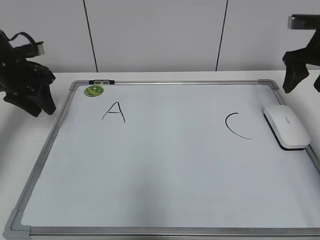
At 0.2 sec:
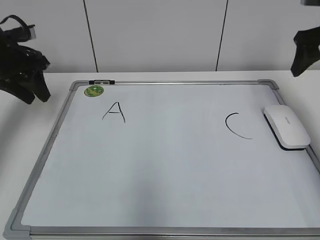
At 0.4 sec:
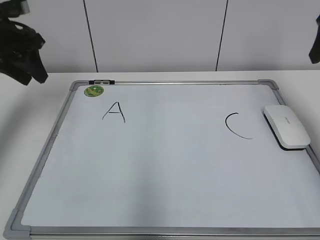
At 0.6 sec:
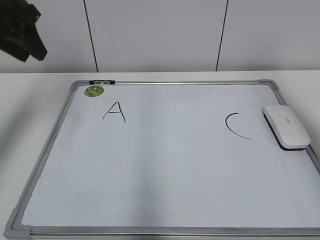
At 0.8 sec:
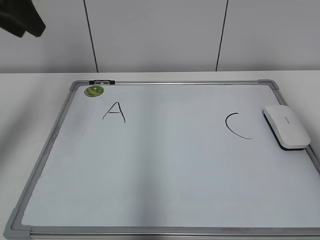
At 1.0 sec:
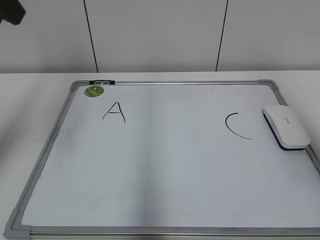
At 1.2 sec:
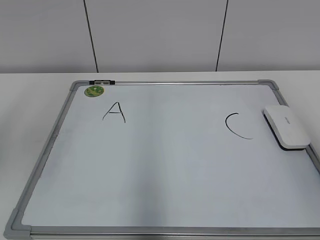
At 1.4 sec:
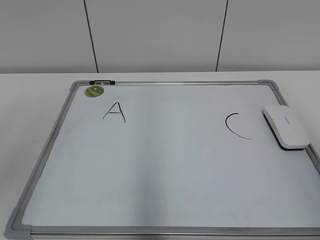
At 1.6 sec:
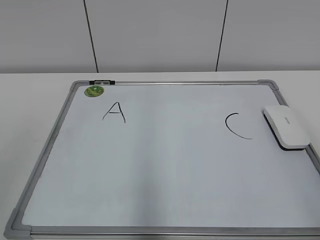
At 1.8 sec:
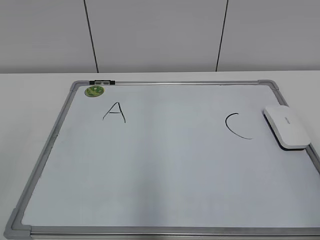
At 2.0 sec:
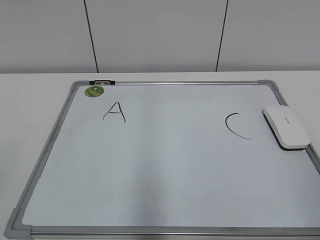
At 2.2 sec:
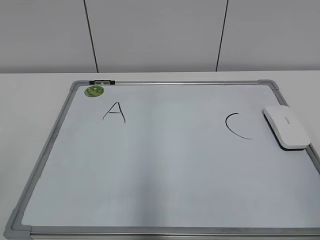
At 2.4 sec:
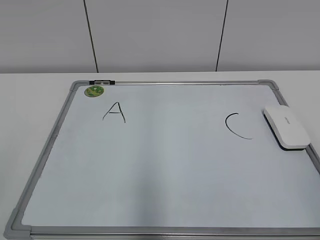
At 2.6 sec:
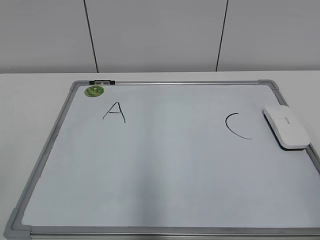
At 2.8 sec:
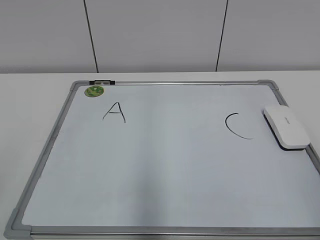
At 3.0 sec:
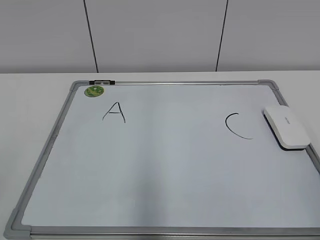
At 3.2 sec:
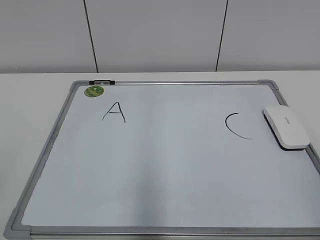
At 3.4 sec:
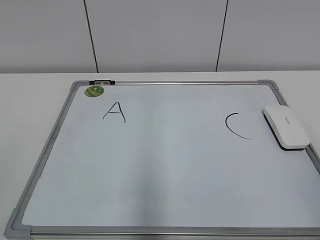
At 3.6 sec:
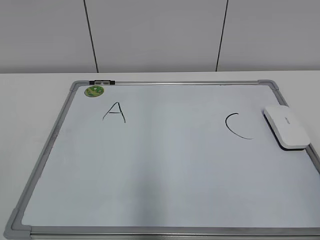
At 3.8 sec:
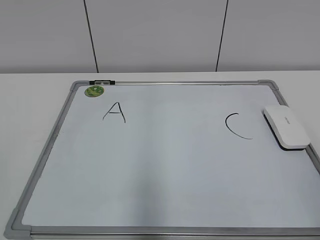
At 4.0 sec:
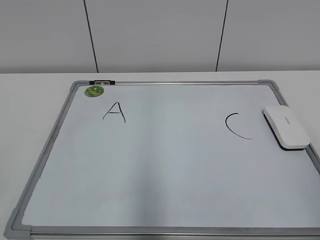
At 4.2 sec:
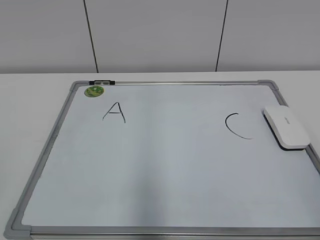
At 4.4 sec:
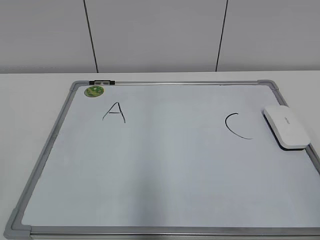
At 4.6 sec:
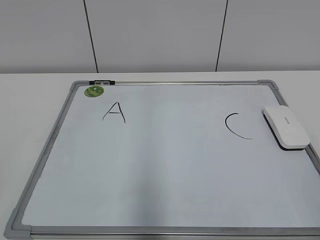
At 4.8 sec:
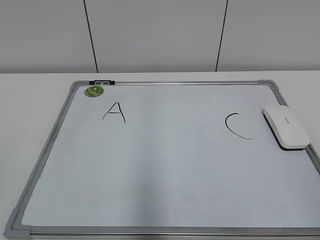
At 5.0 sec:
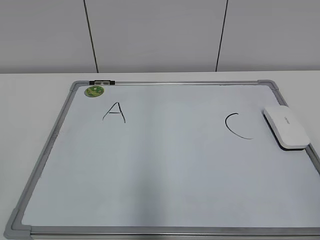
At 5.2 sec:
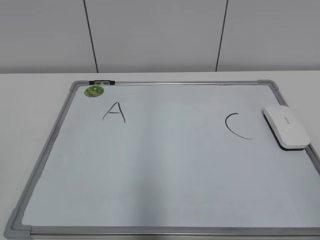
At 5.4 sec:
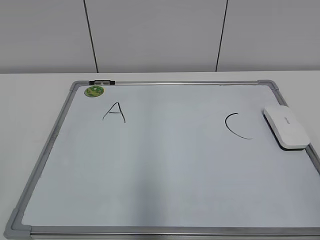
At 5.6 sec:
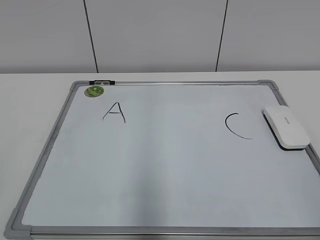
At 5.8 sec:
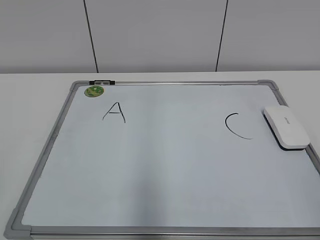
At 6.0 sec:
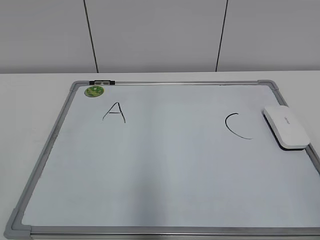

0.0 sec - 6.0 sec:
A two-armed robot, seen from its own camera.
Task of the whole recording: pick up the eraser on the blackboard and erase the letter "B".
0.0 sec - 1.6 sec: The left gripper shifts about 35 cm backward and upward; the right gripper is displaced backward by some 35 cm.
